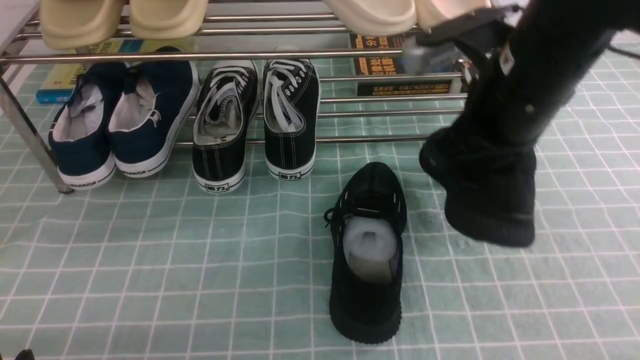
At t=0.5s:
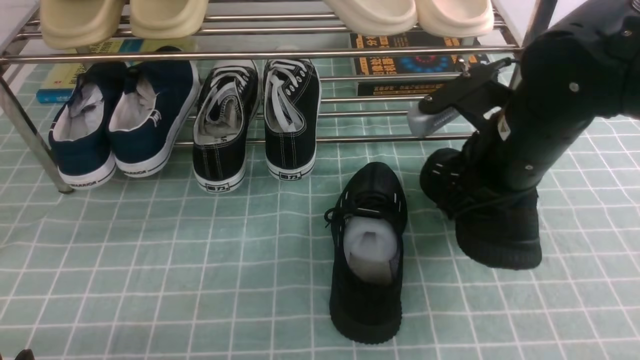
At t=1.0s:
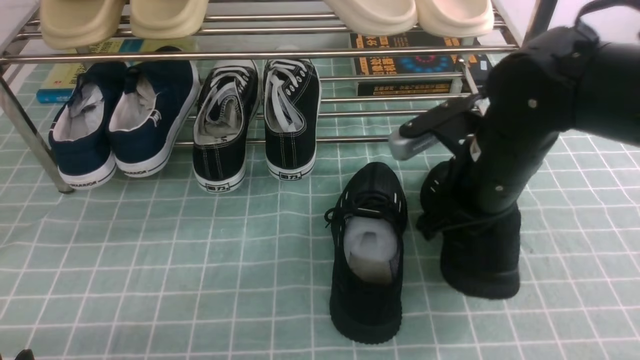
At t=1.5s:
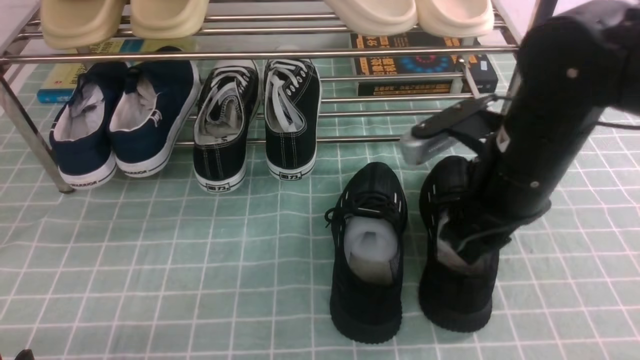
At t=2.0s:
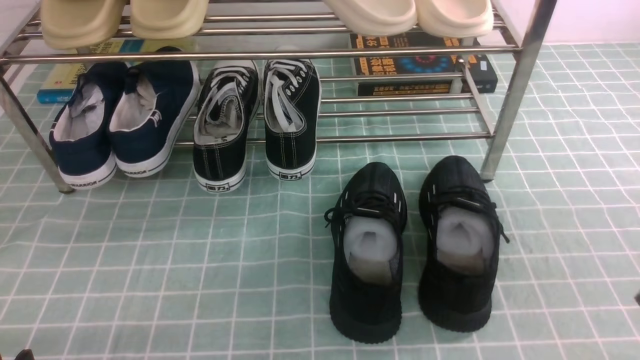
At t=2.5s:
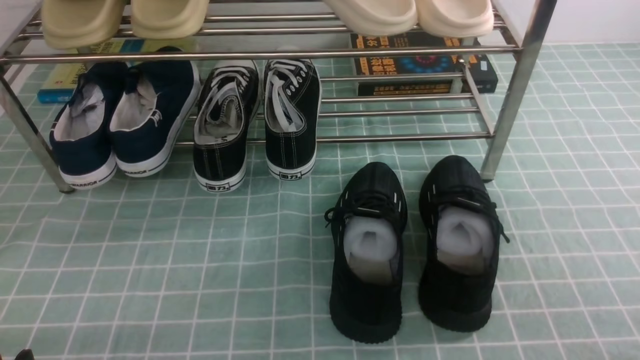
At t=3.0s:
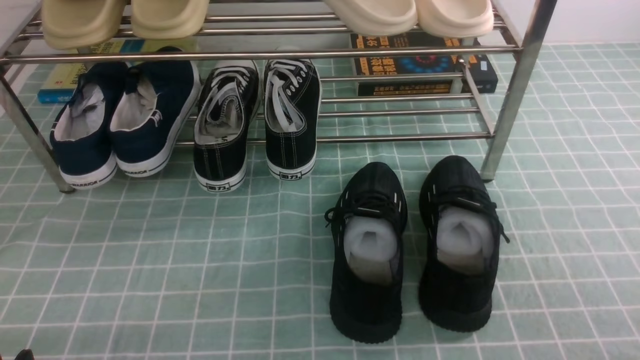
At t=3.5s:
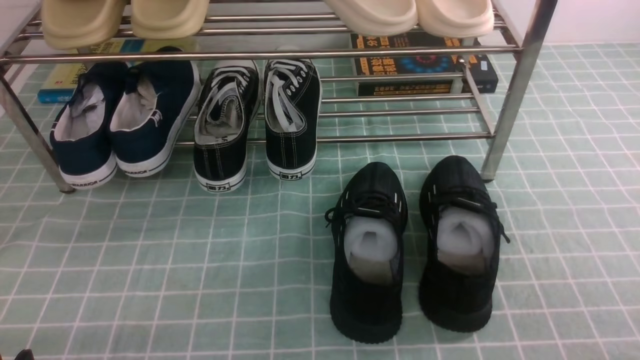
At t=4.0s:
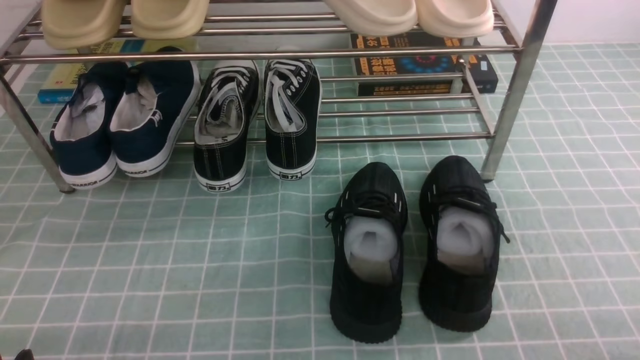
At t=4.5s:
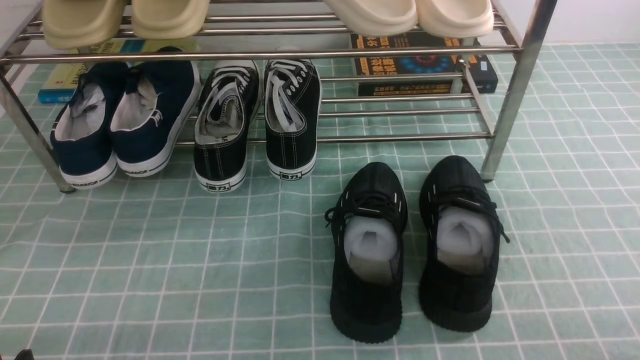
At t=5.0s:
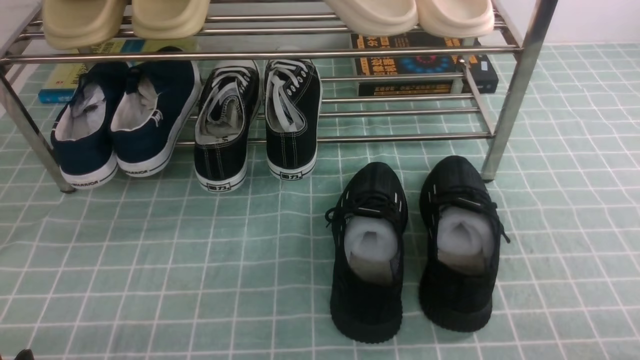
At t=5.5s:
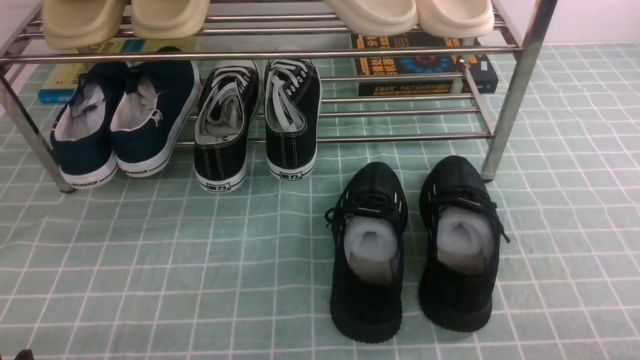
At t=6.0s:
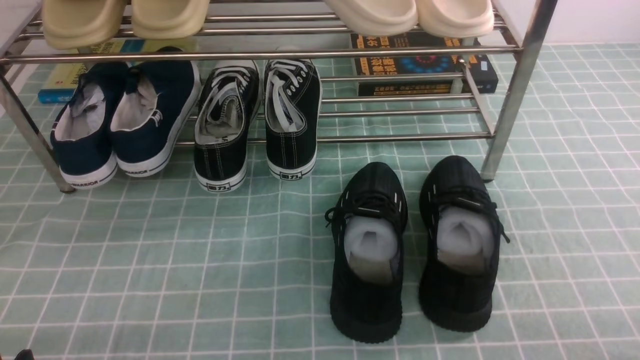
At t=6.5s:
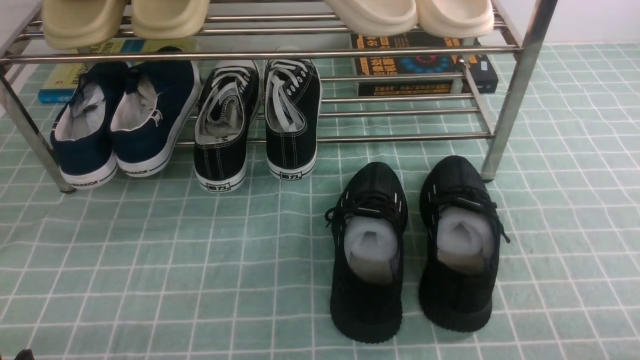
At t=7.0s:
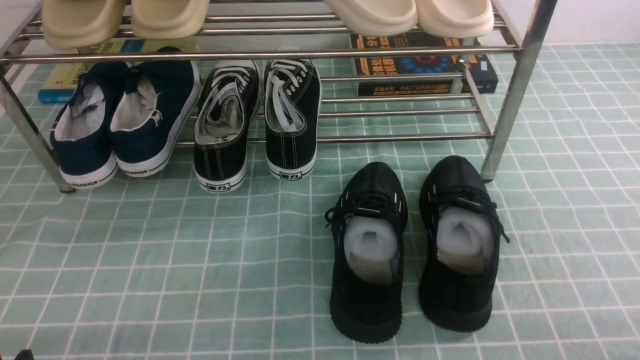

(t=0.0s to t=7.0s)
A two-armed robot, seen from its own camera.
Step, t=0.0s - t=1.5s: use the right arm to take out the clamped shoe from the shoe rack and put it down.
t=0.0s - t=2.0s: The right gripper is displaced backward and to the right by roughly 20 cm, and opens and closes again.
t=2.0s - t=3.5s: The right gripper goes about 10 cm downward and backward.
t=5.0s - t=7.0s: Neither gripper changes place.
